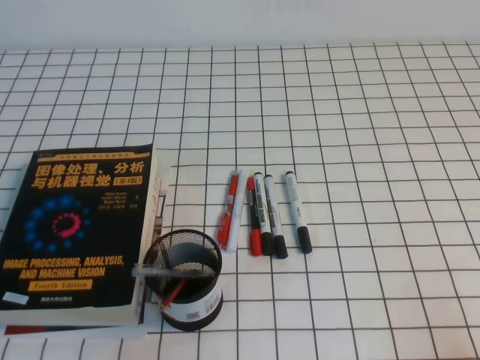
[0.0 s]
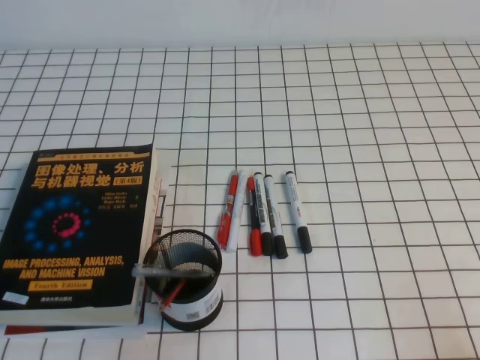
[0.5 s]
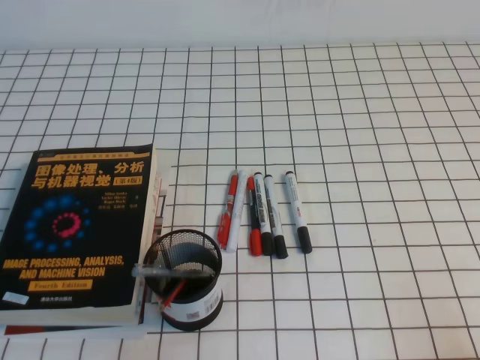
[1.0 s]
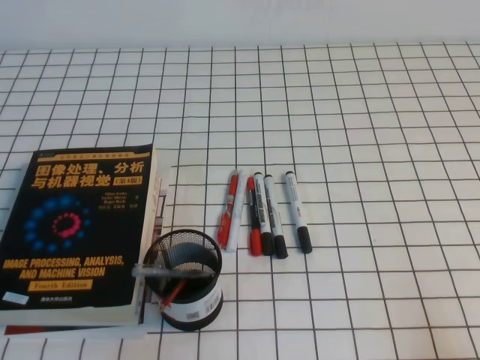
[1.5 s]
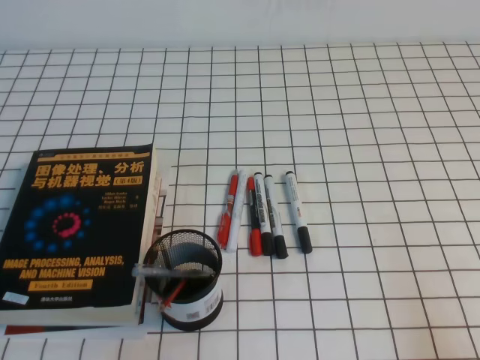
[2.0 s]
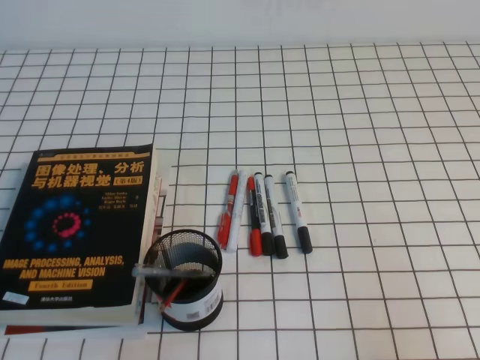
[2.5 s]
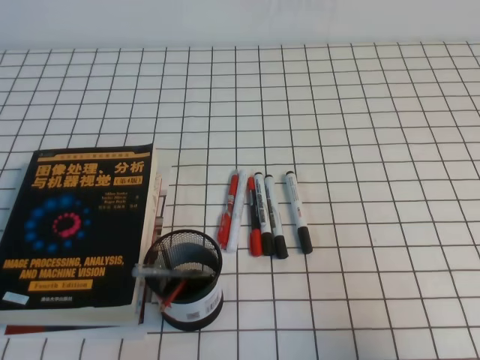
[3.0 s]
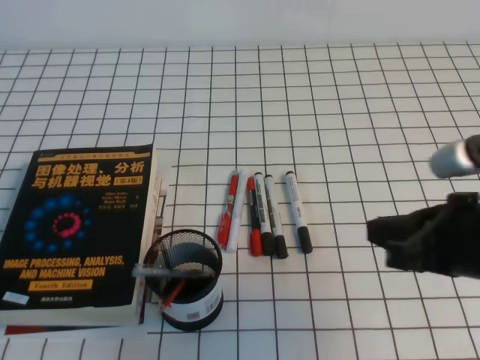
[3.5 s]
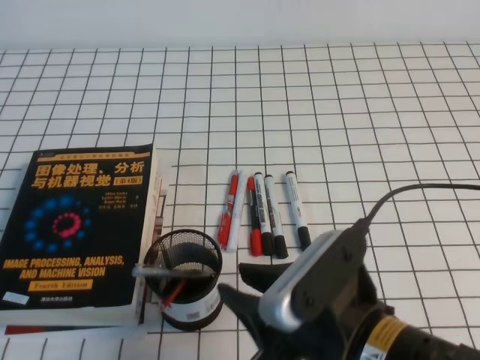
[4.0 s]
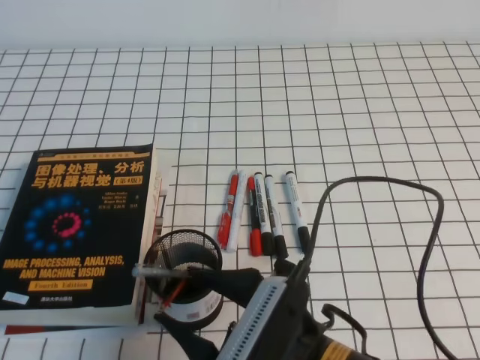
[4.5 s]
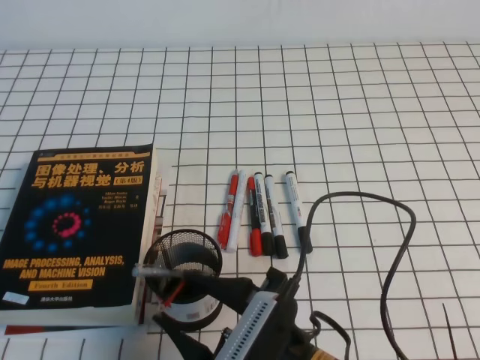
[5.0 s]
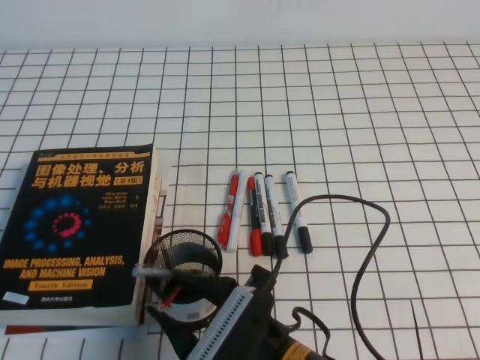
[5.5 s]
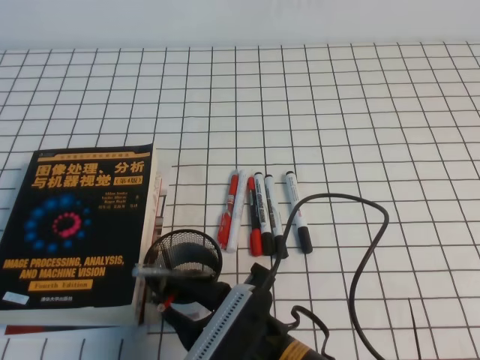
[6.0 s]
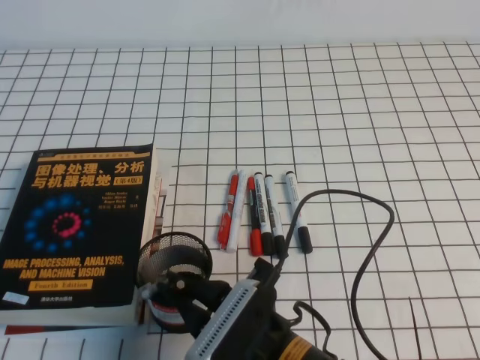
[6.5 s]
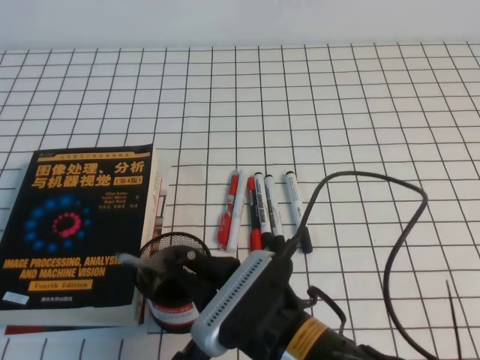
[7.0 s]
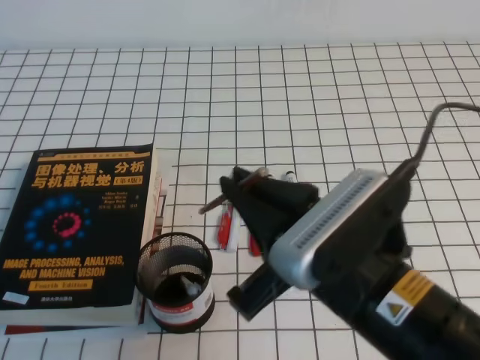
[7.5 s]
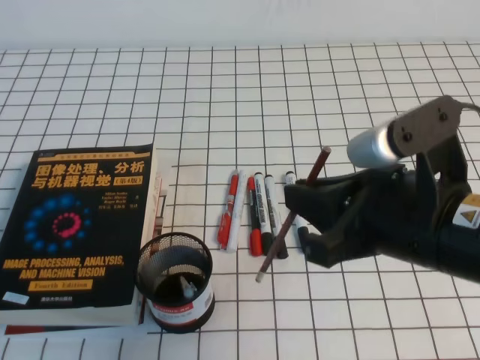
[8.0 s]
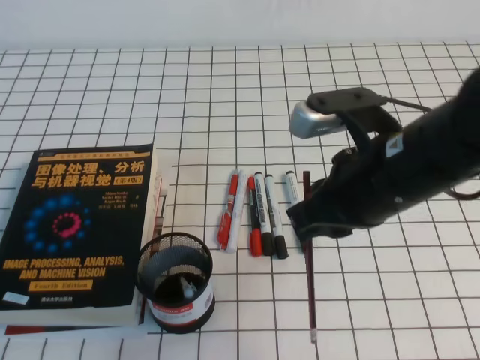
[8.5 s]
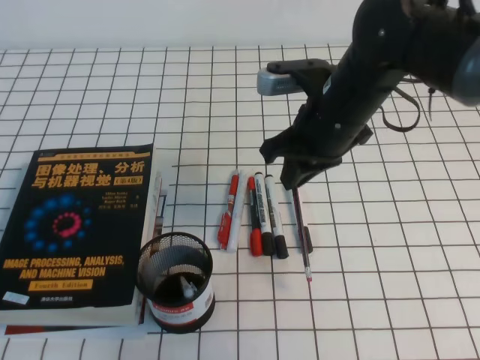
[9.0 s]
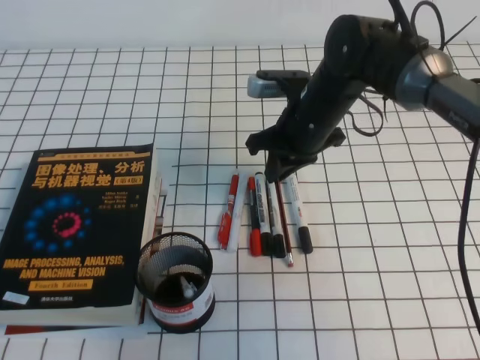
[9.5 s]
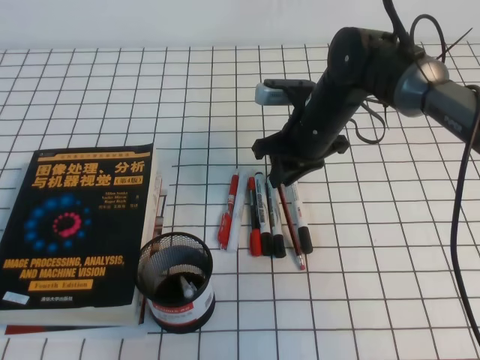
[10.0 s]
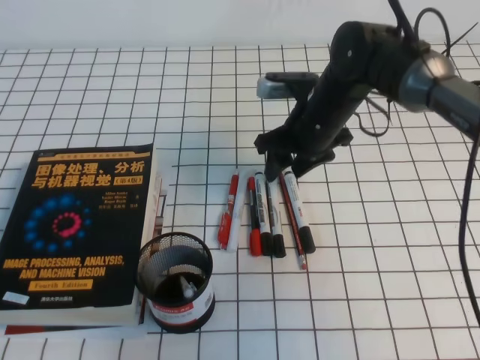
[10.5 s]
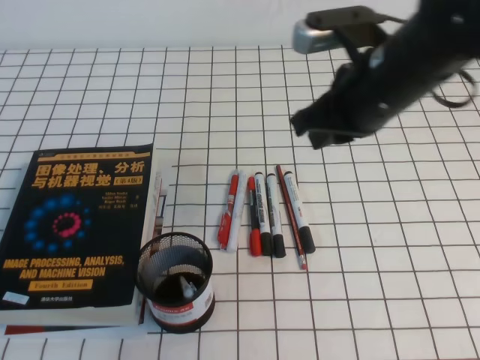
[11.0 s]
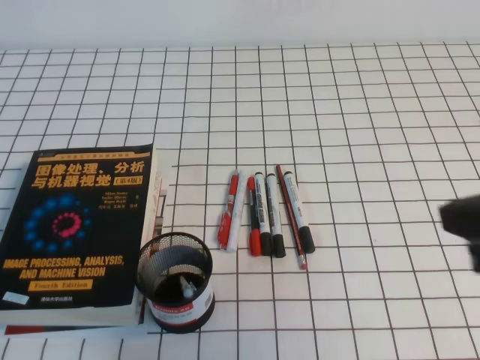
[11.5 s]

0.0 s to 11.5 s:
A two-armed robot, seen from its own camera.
2.0 to 4.0 s: The right gripper heads to the left, covering roughly 25 cm, and opens up.
4.0 to 6.0 s: The right gripper heads downward and to the left, covering approximately 10 cm, and opens, then closes once more.
6.0 to 7.5 s: The right gripper is displaced upward and to the right by about 15 cm, and closes up.
7.5 to 9.5 s: The right gripper is displaced forward by approximately 30 cm.
9.5 to 11.5 s: The right gripper shifts about 30 cm backward, to the right and upward, and opens, then closes again.

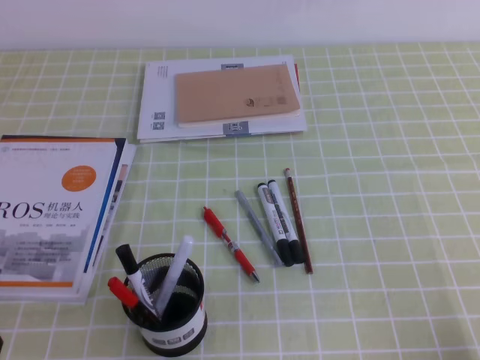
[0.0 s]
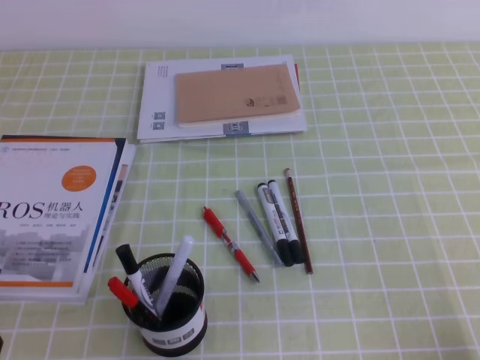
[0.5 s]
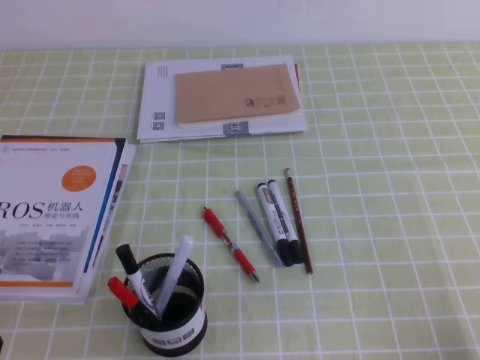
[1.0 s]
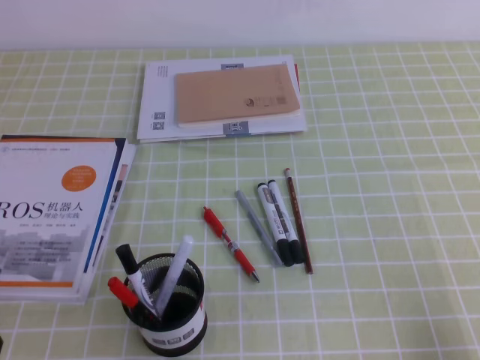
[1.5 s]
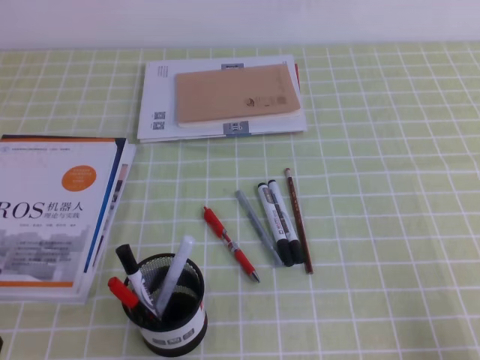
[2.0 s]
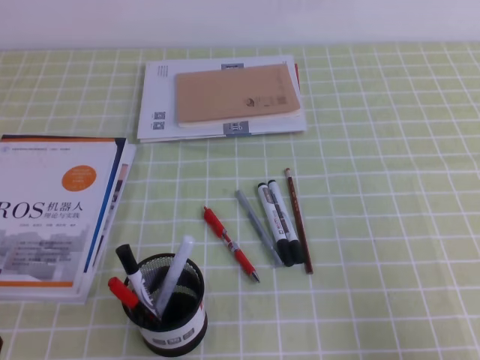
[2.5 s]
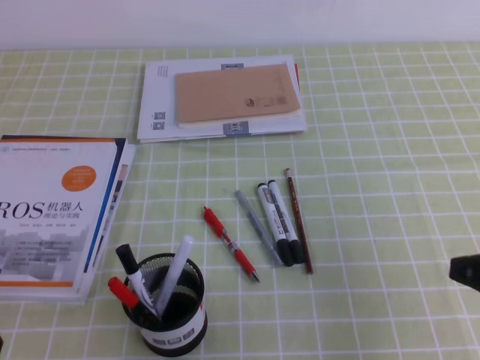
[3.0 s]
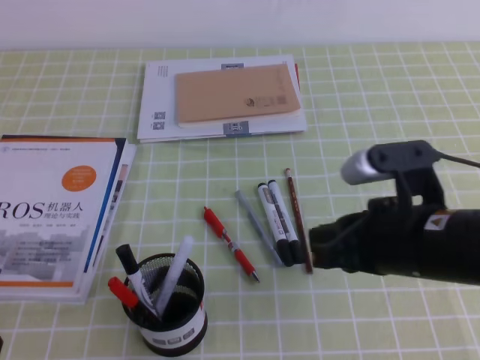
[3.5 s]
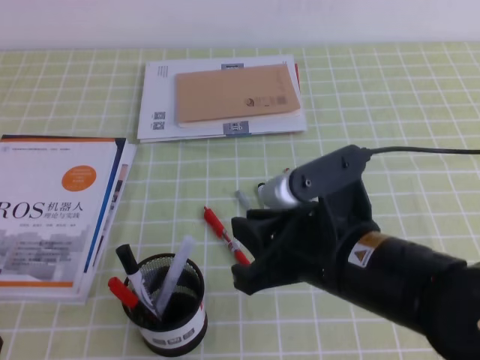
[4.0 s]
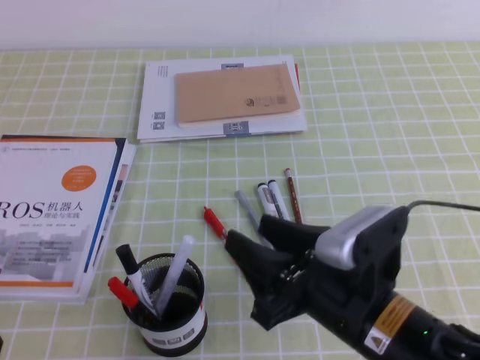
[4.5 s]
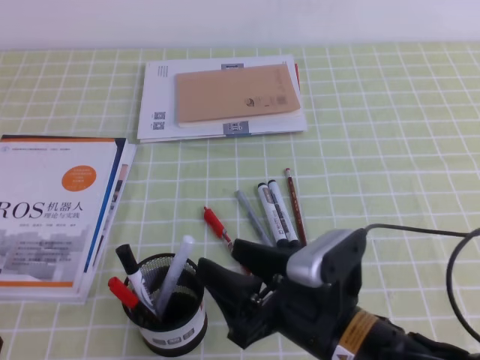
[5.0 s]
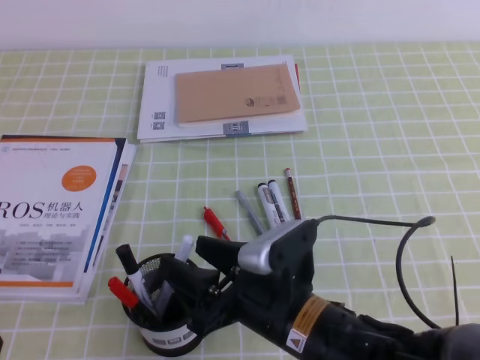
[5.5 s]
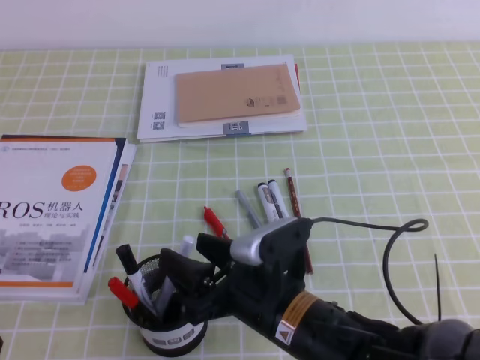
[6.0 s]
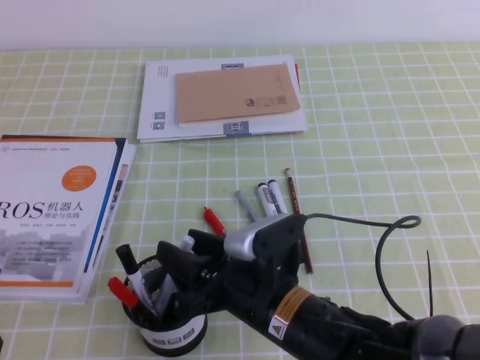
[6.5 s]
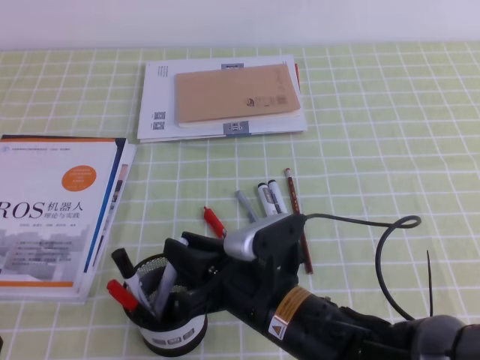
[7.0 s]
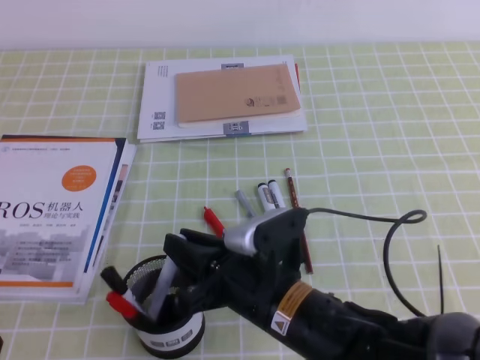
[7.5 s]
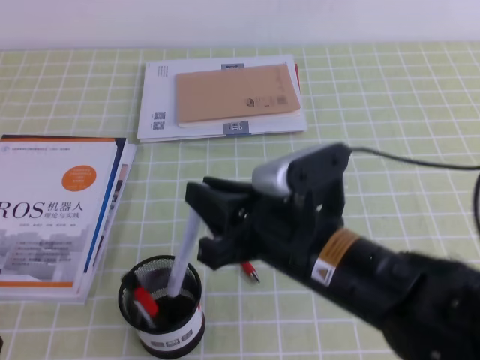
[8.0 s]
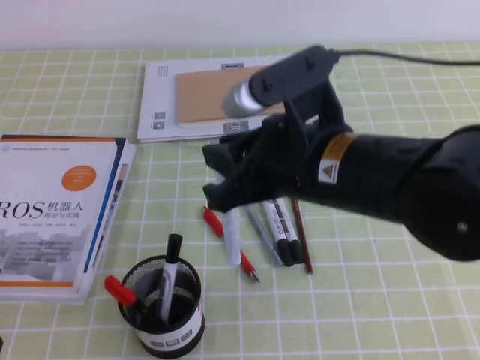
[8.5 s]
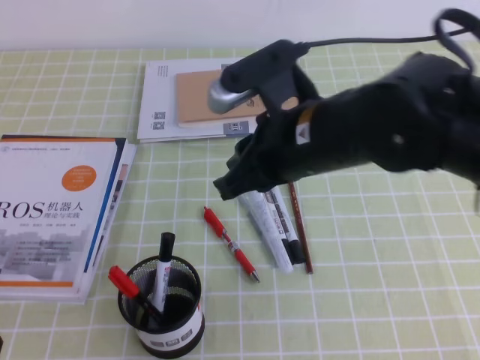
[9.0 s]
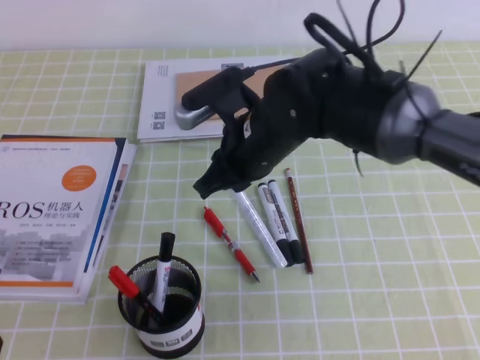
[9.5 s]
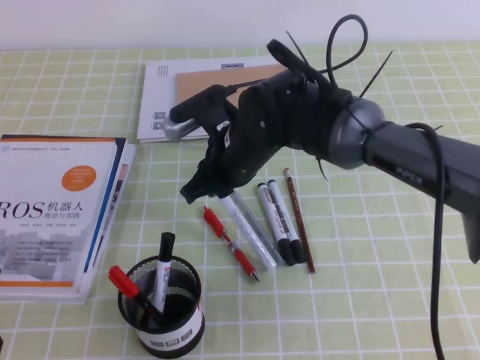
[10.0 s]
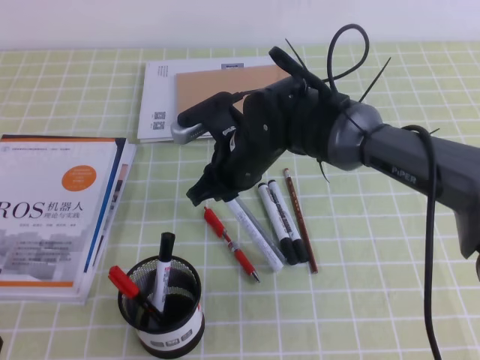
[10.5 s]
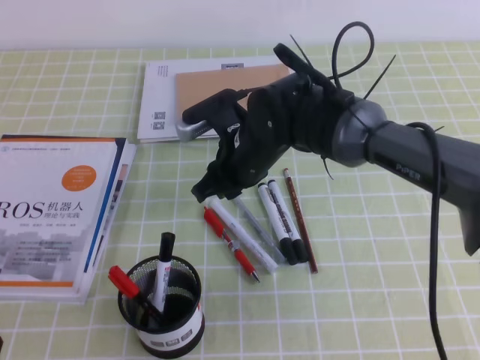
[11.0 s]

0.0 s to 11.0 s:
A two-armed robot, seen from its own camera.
2.0 to 3.5 s: The right gripper travels to the left and forward by some 20 cm.
3.5 to 5.5 s: The right gripper moves to the left and downward, about 15 cm, and opens.
5.5 to 7.5 s: The right gripper closes its fingers.
7.5 to 9.0 s: The right gripper moves upward and forward, some 15 cm.
9.0 to 11.0 s: The right gripper heads forward, downward and to the left, covering roughly 15 cm.

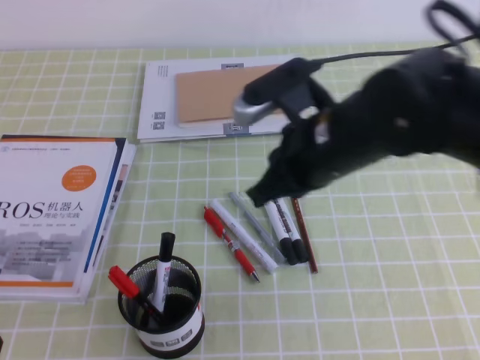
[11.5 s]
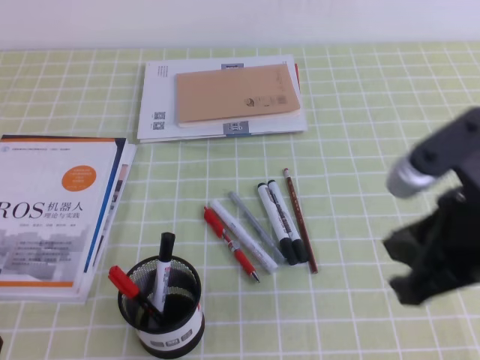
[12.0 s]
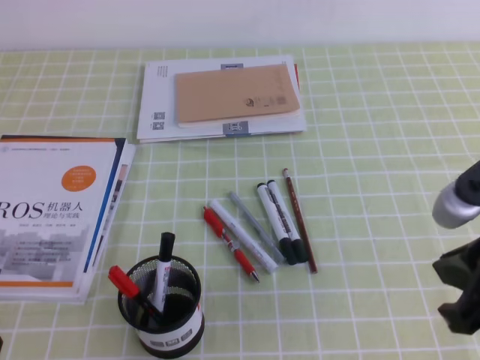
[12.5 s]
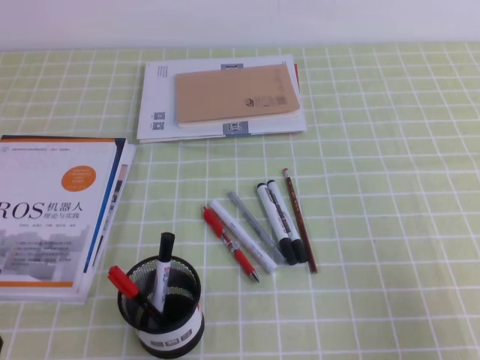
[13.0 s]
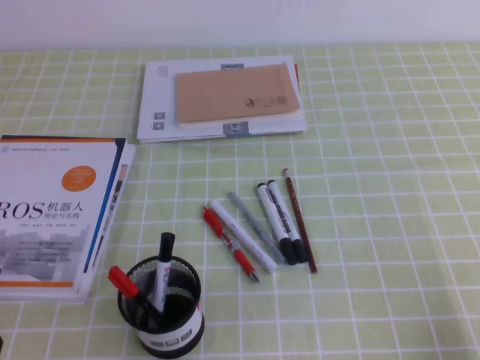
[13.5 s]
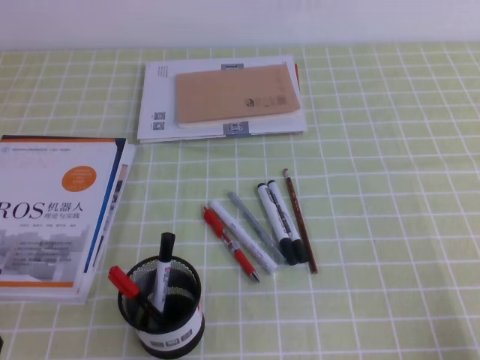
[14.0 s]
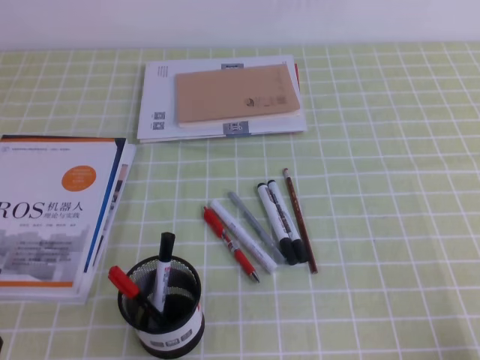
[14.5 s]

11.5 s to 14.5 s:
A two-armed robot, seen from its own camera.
Step, 11.5 to 14.5 s: Pick up the pen from the pen holder.
11.5 to 13.0 s: The right gripper is displaced to the right and backward by roughly 30 cm.
